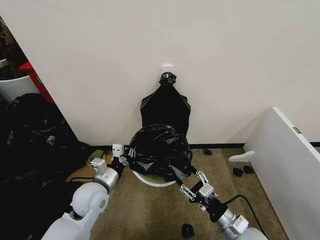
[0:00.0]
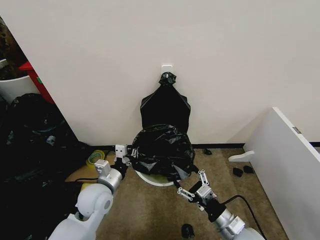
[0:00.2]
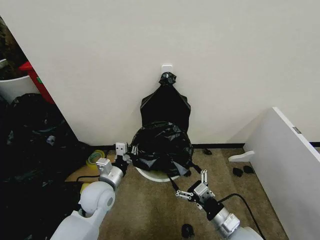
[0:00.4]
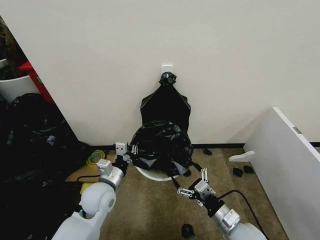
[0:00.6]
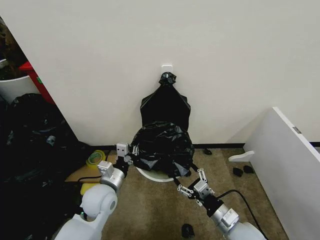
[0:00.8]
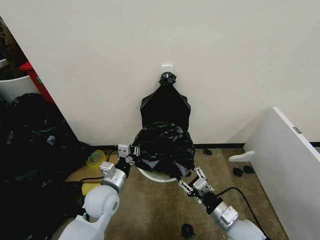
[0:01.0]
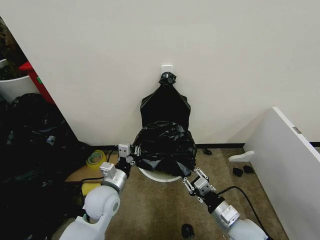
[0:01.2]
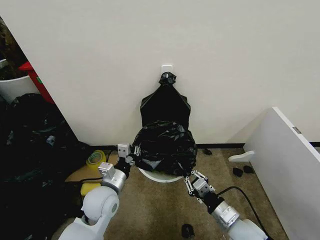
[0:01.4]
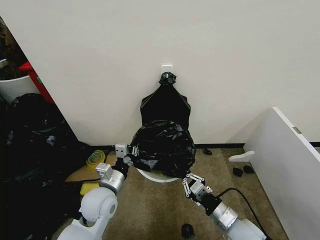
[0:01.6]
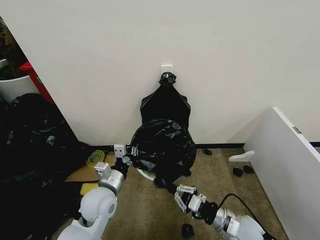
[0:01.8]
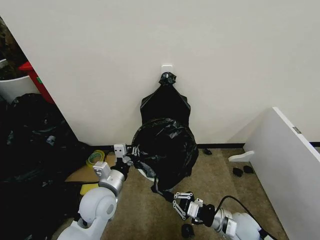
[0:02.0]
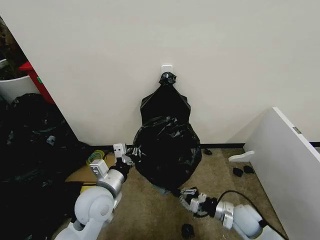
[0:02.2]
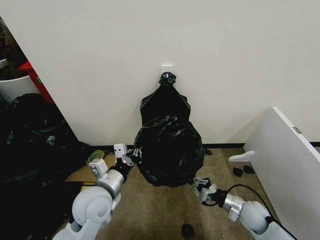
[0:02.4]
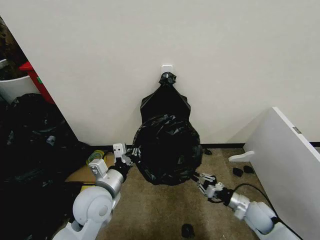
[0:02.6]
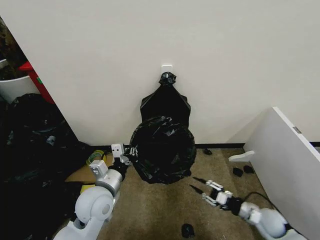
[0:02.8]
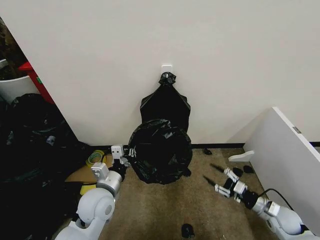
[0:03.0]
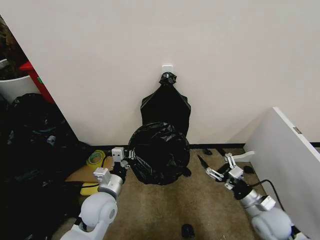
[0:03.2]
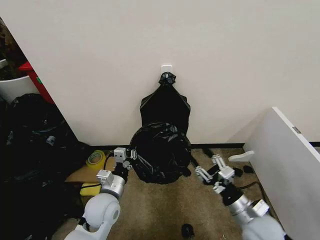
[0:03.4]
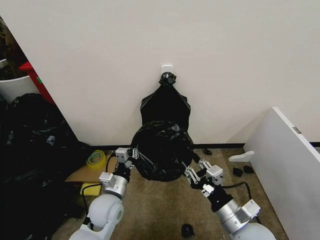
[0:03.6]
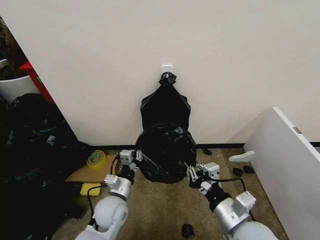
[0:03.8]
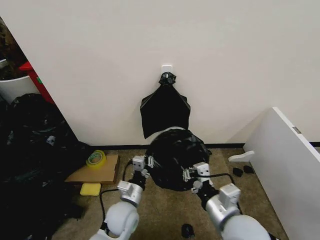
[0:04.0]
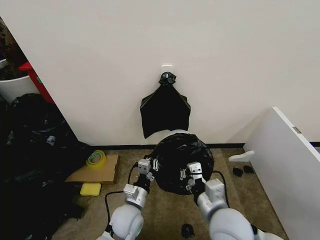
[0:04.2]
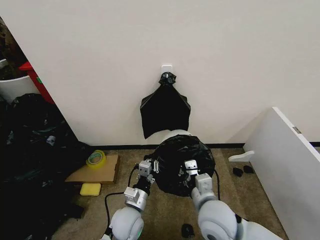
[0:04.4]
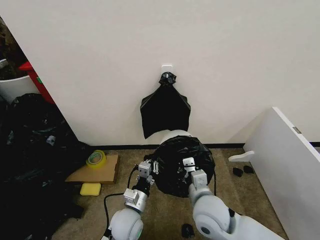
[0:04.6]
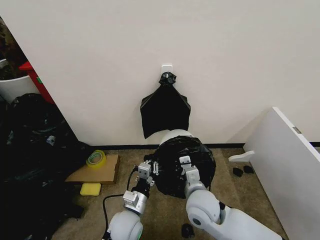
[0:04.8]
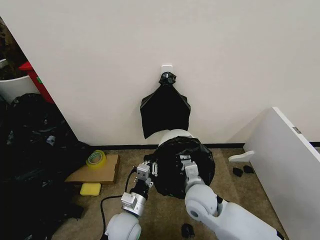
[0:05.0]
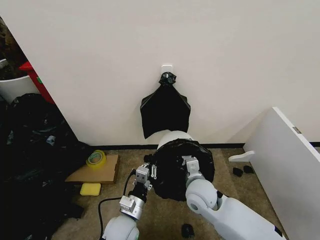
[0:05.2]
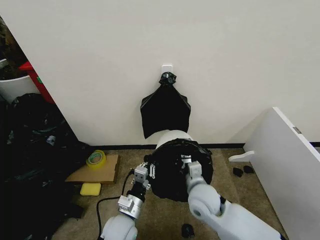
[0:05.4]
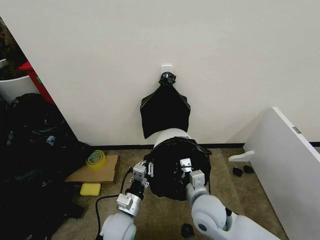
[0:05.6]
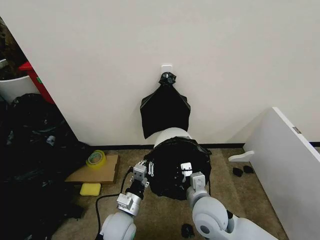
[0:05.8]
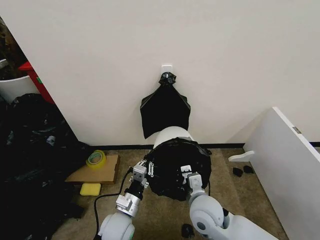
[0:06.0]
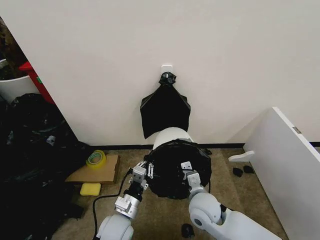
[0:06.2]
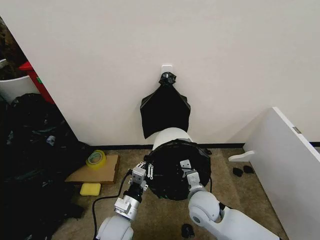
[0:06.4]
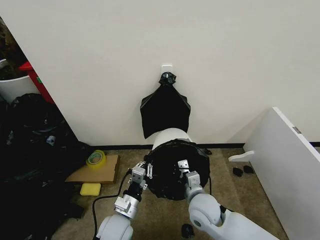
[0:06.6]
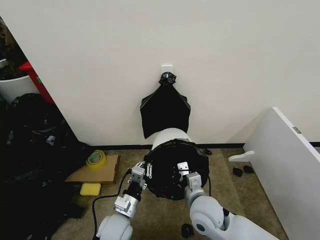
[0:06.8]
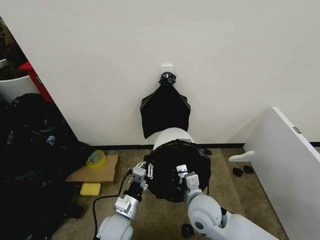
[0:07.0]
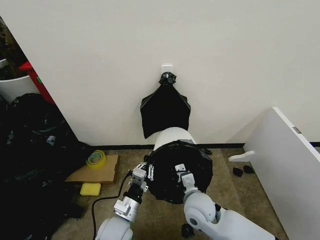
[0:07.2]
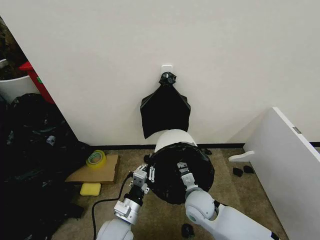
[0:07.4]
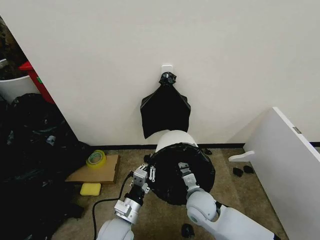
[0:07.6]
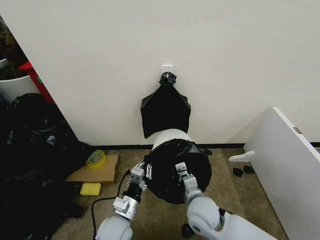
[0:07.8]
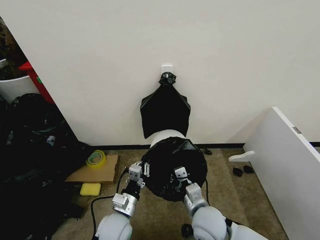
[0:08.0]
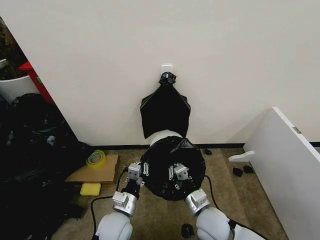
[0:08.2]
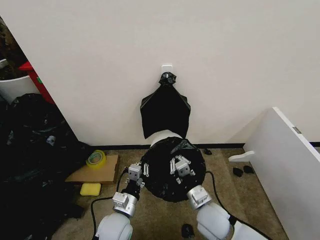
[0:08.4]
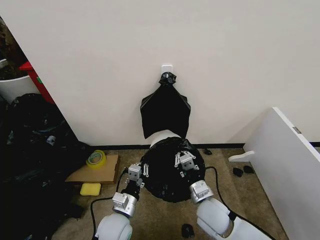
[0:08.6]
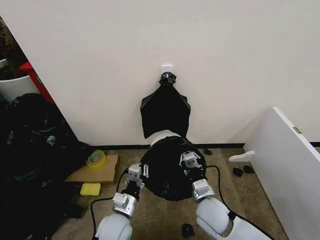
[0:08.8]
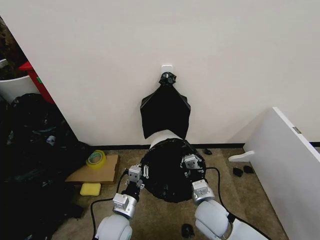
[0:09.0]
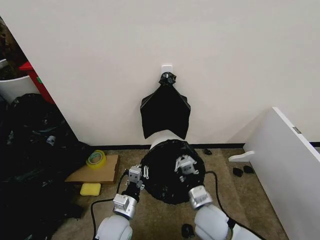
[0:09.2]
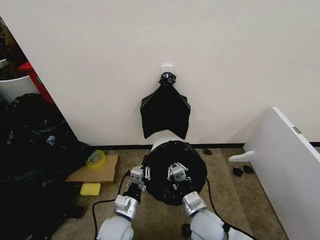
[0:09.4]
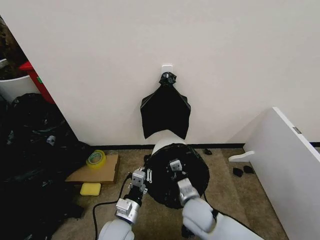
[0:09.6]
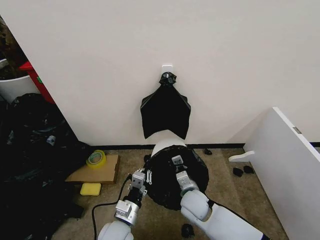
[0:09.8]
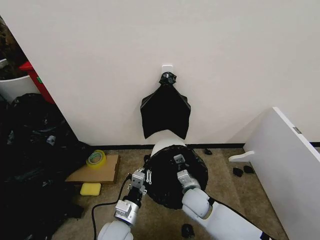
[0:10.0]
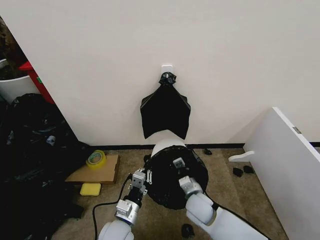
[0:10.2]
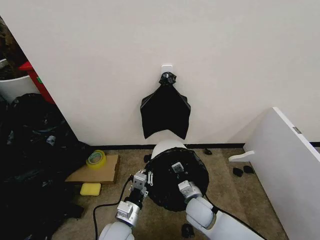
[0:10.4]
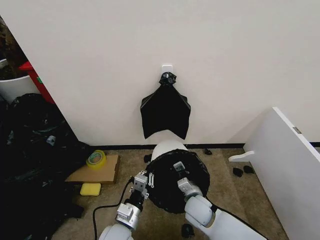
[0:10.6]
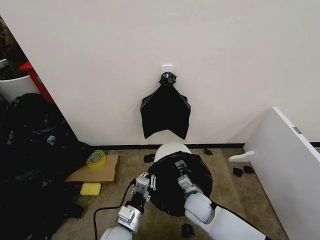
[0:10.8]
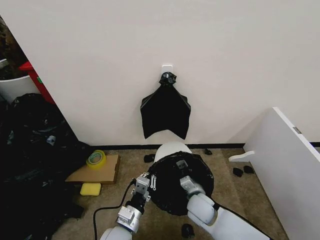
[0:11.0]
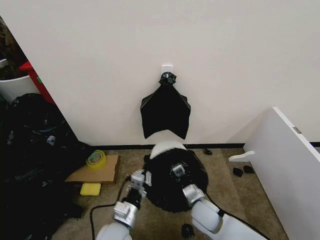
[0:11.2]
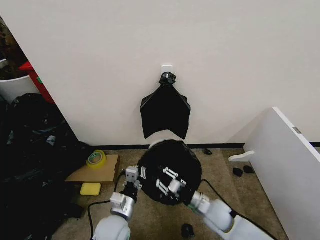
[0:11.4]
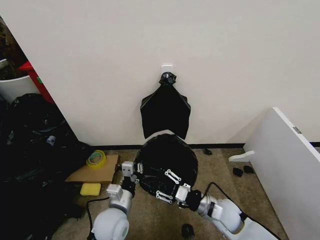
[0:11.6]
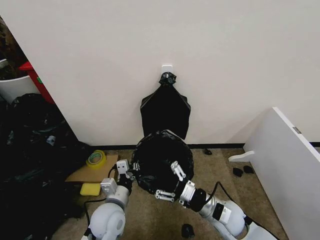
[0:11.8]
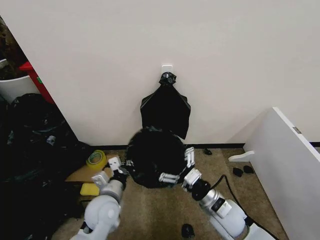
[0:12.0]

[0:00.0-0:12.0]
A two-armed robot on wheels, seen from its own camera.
Task of the whole recording: Place the garbage bag over the trash bin.
0:00.0 to 0:01.6: The right gripper closes up.
0:01.6 to 0:03.0: The right gripper heads to the right, covering approximately 20 cm, and opens.
0:03.0 to 0:04.4: The right gripper goes approximately 30 cm to the left and upward, and closes its fingers. Meanwhile the left gripper heads downward and to the right, covering about 10 cm.
0:06.0 to 0:07.6: The right gripper is displaced downward by about 5 cm.
0:07.6 to 0:09.0: The right gripper changes place by approximately 5 cm.
0:09.0 to 0:10.4: The right gripper shifts roughly 5 cm downward.
0:10.4 to 0:12.0: The right gripper shifts about 10 cm upward and to the right, and opens up; the left gripper moves forward and upward, about 10 cm.

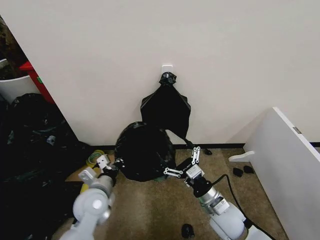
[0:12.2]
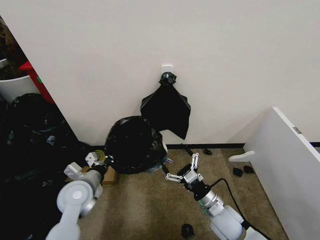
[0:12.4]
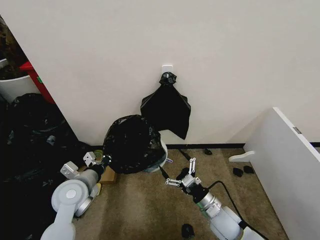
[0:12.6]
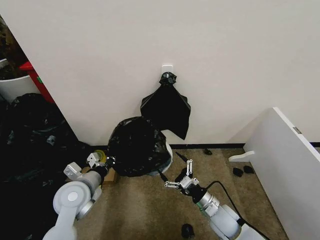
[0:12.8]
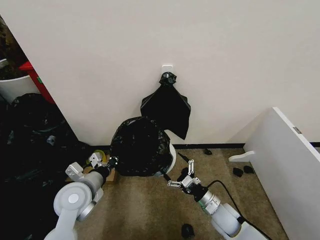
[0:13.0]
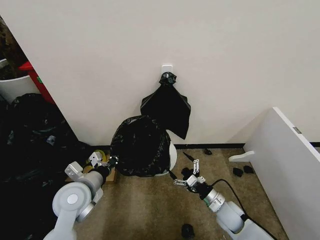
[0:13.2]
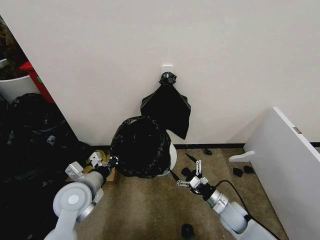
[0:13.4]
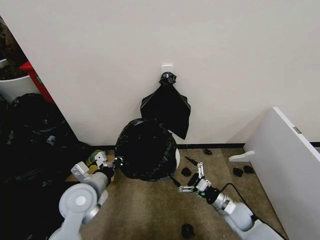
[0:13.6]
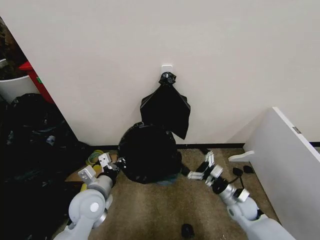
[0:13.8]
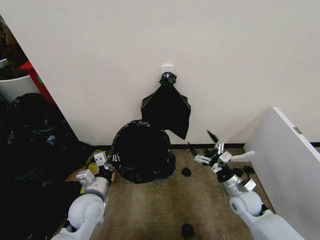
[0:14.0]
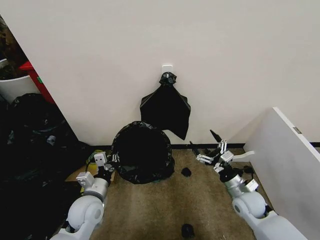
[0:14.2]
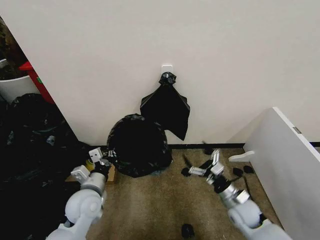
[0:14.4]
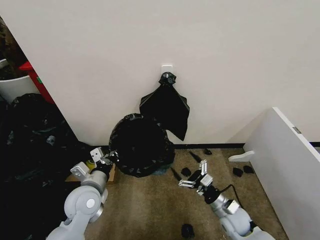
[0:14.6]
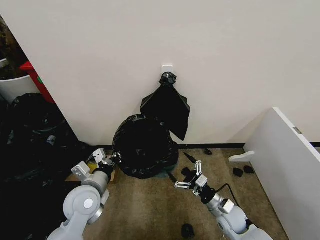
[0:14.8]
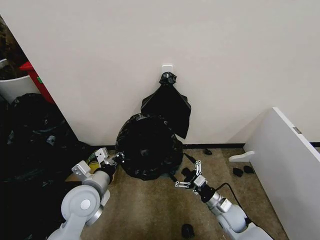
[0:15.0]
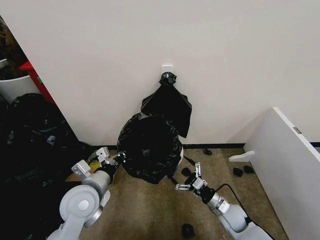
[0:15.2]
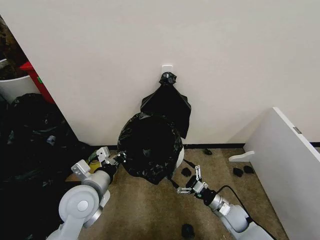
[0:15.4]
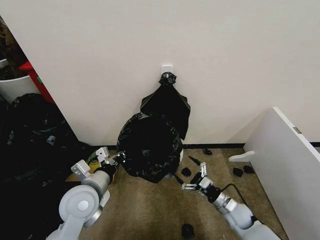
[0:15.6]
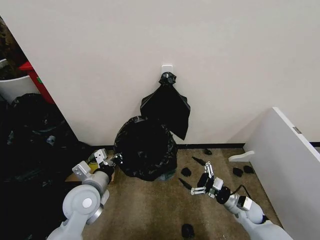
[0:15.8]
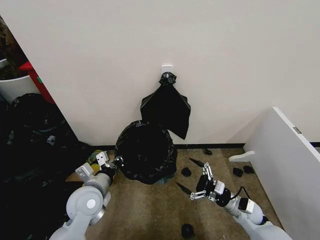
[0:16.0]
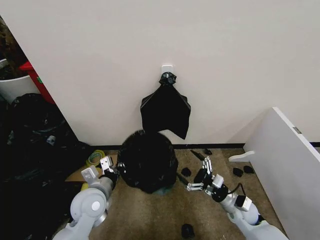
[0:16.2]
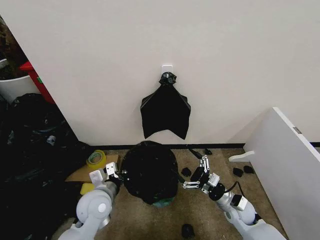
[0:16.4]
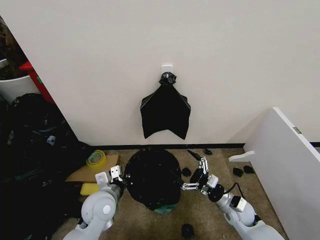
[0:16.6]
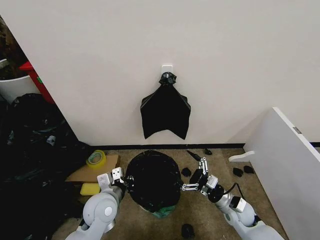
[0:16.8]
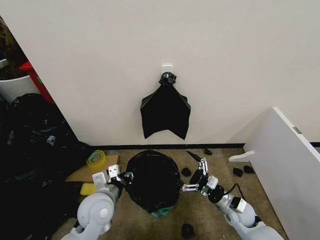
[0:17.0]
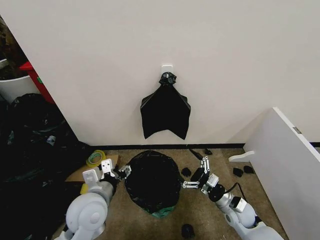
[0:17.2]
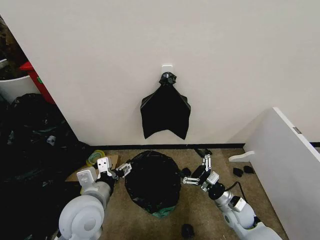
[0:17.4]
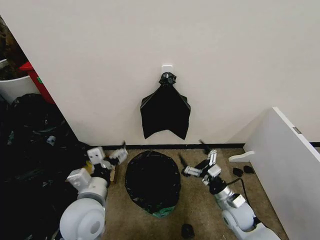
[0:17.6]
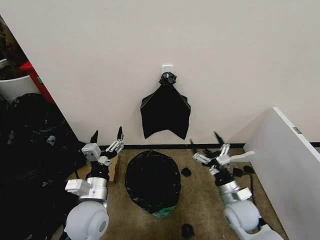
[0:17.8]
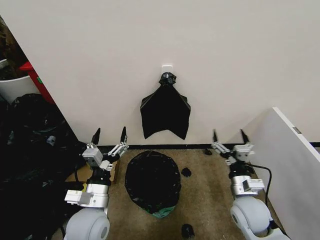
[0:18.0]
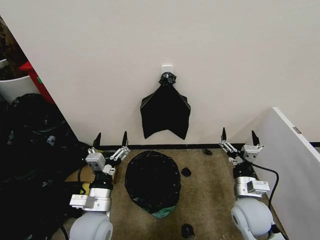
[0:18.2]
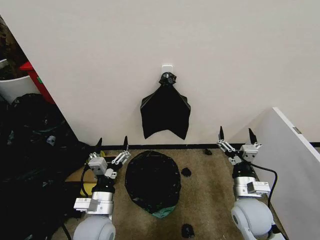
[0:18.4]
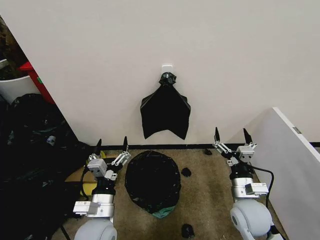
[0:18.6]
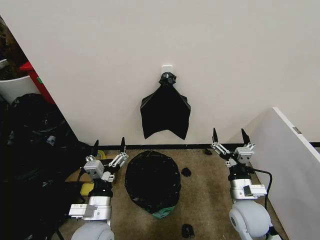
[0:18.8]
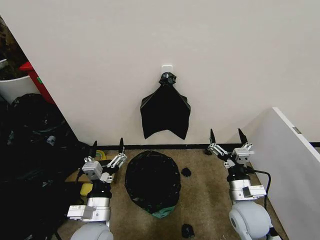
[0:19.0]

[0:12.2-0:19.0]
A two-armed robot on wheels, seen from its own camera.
Task of the whole recording: Place the garbage bag over the trash bin.
0:12.2 to 0:13.6: The right gripper moves downward and to the right, about 15 cm.
0:13.6 to 0:15.0: The right gripper goes upward and returns, approximately 10 cm each way.
0:16.2 to 0:17.6: The left gripper heads upward and backward, covering roughly 10 cm, and opens.
0:17.6 to 0:19.0: The left gripper goes about 5 cm downward. The right gripper moves upward, about 10 cm.

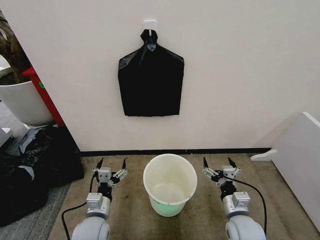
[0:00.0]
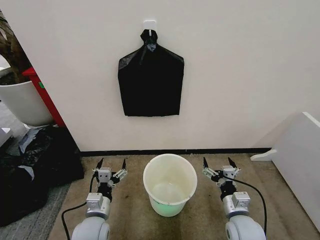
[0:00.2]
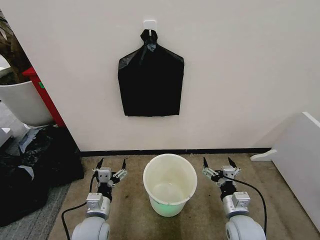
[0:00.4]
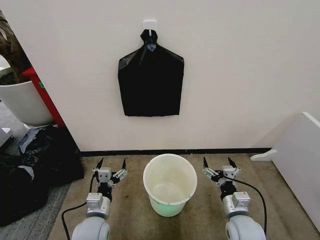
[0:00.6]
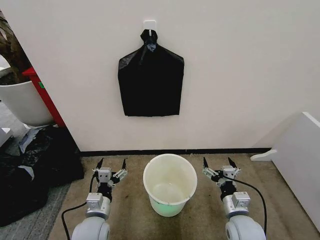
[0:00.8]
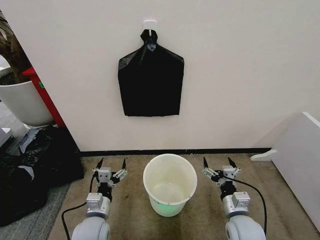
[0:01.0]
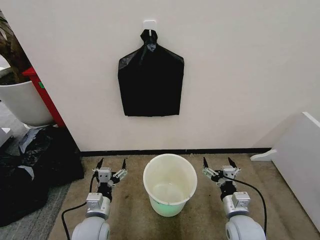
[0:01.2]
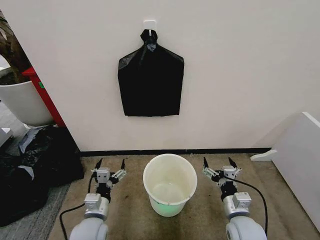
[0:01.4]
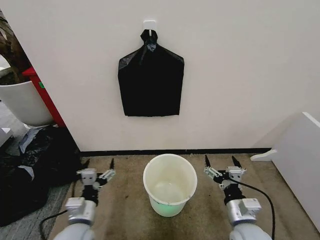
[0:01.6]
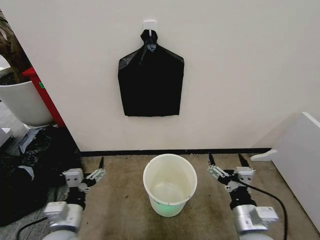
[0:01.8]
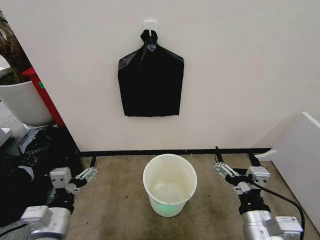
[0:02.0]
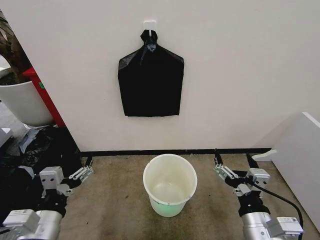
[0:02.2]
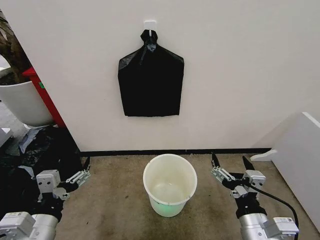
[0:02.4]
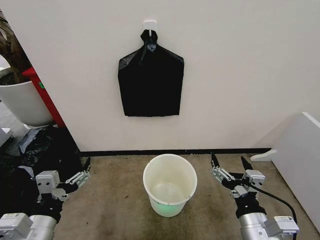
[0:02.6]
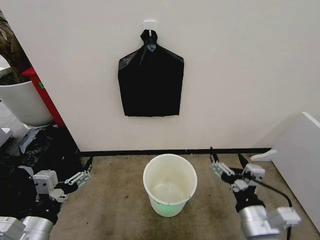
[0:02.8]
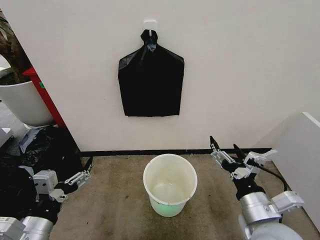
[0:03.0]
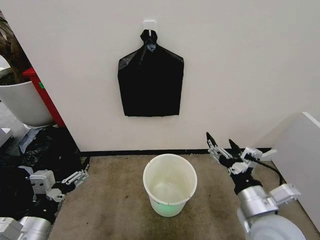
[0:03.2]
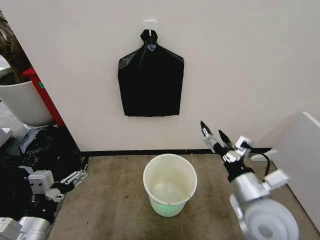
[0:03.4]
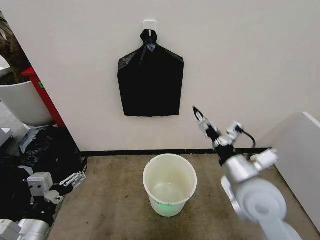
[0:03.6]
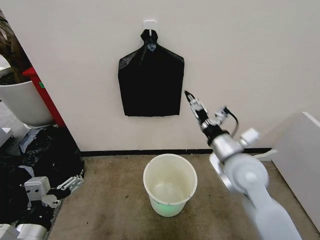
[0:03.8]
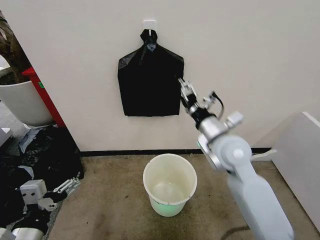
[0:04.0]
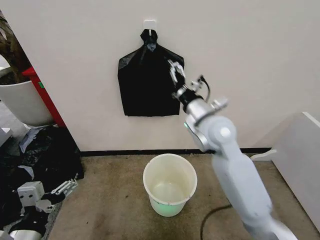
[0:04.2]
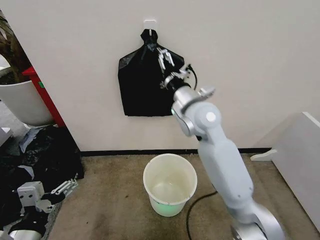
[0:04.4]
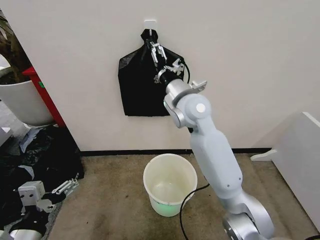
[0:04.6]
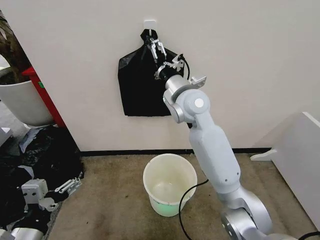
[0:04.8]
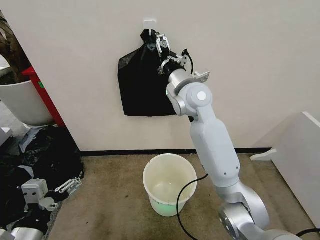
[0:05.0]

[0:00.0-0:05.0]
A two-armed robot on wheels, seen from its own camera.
Task of the whole recording: Place the garbage bag over the trash bin.
0:01.6 to 0:03.4: The right gripper travels upward by about 10 cm. Meanwhile the left gripper travels upward, backward and to the left by approximately 15 cm.
0:03.4 to 0:05.0: The right gripper heads forward, upward and to the left, covering about 35 cm.
